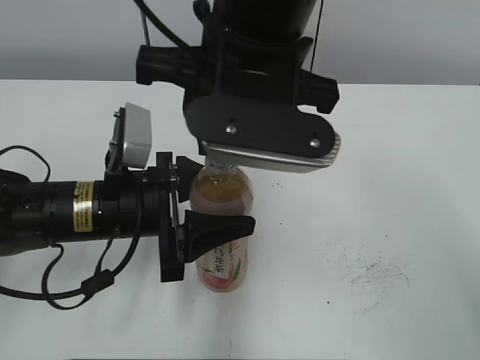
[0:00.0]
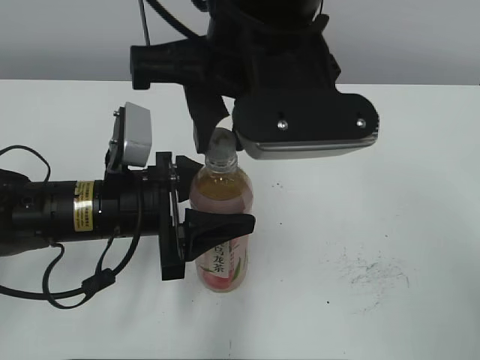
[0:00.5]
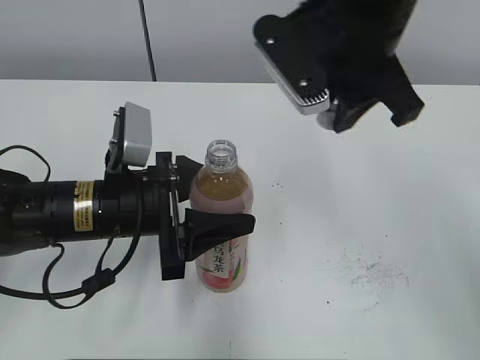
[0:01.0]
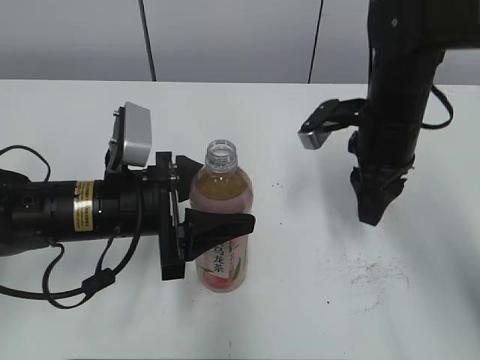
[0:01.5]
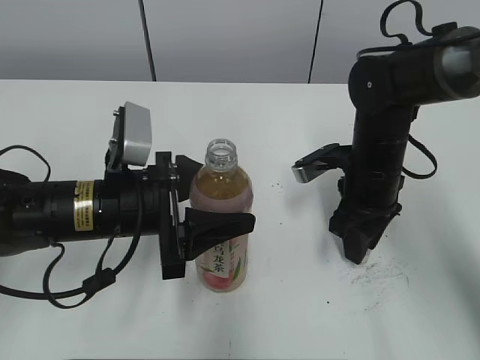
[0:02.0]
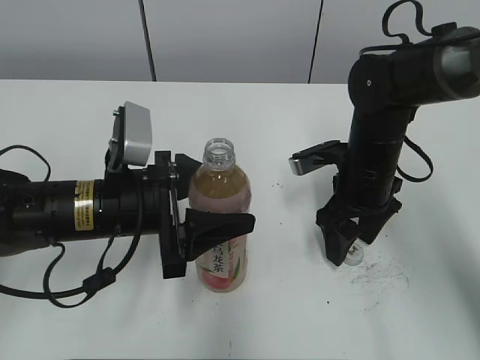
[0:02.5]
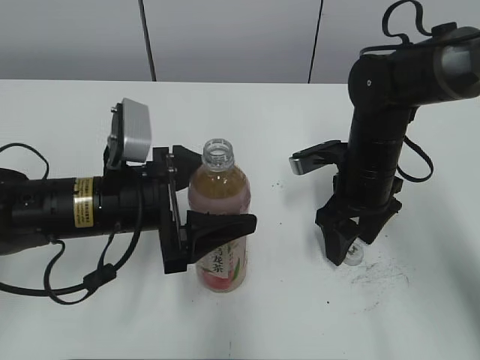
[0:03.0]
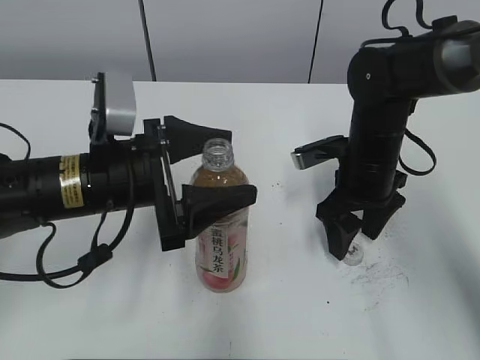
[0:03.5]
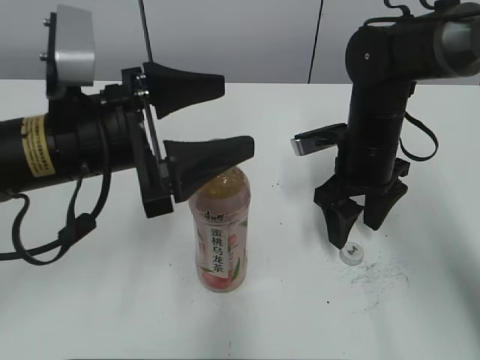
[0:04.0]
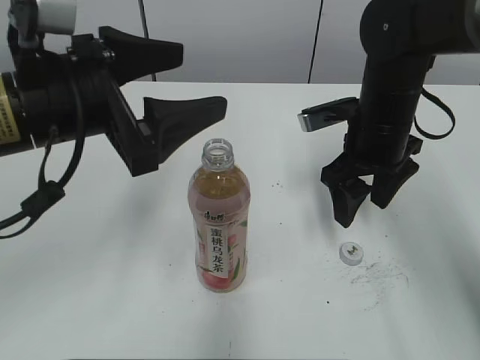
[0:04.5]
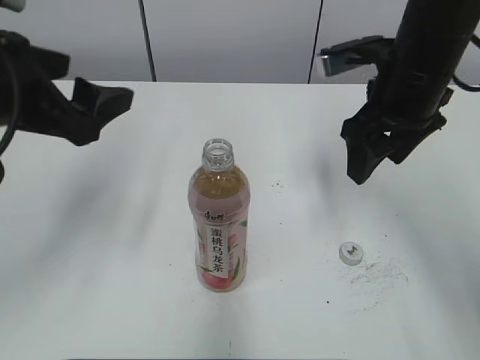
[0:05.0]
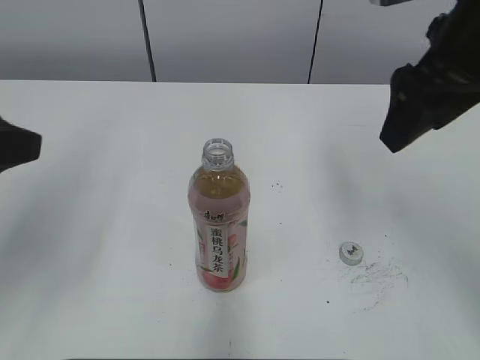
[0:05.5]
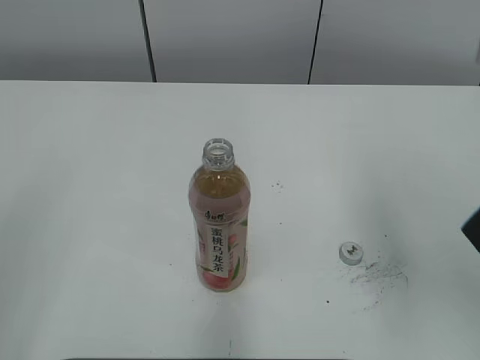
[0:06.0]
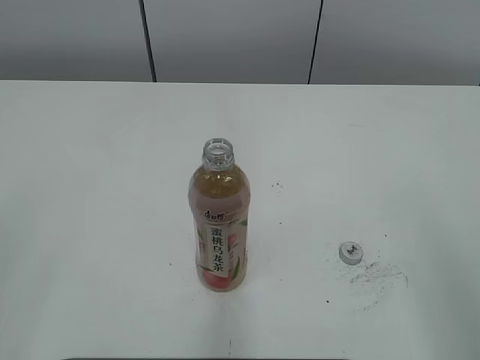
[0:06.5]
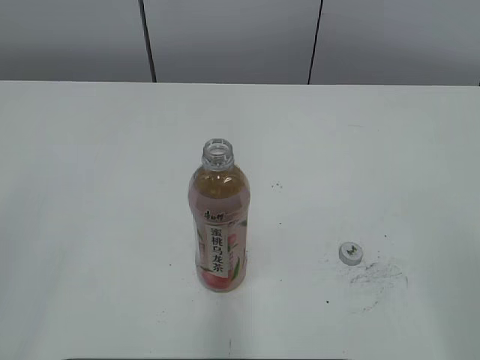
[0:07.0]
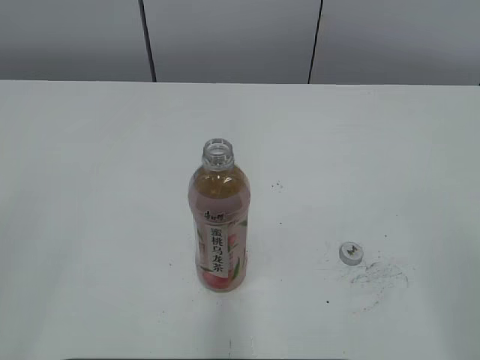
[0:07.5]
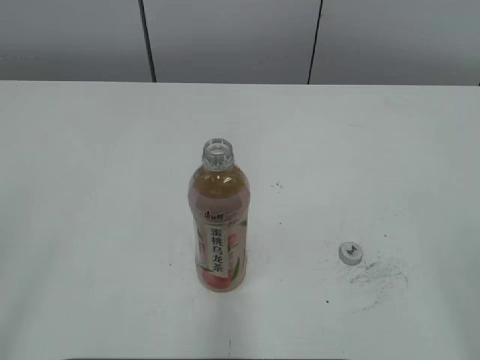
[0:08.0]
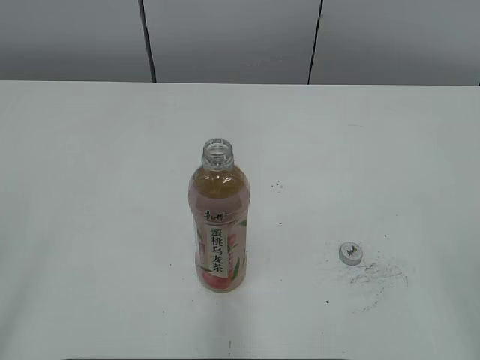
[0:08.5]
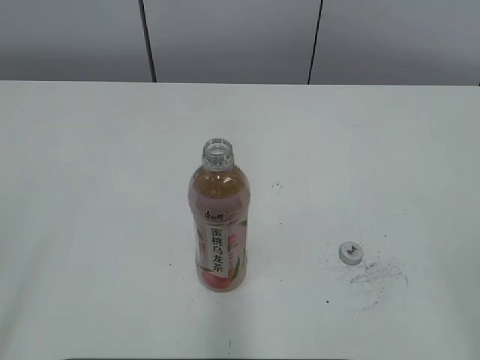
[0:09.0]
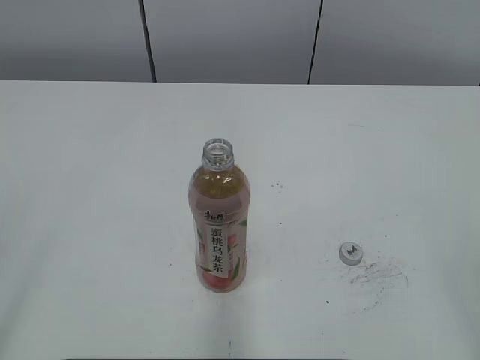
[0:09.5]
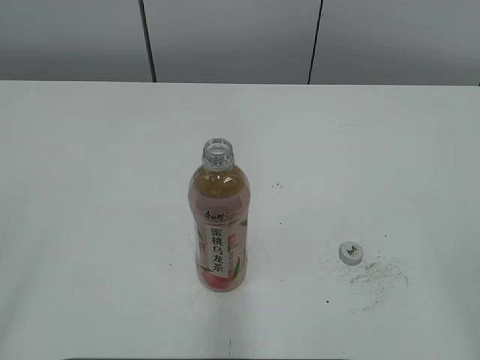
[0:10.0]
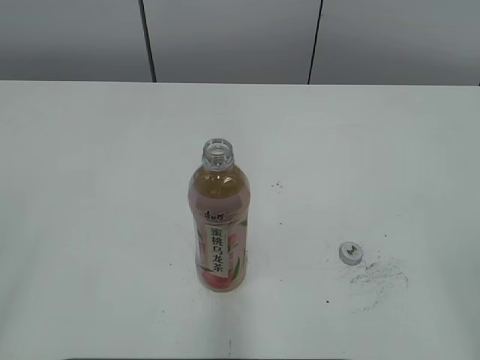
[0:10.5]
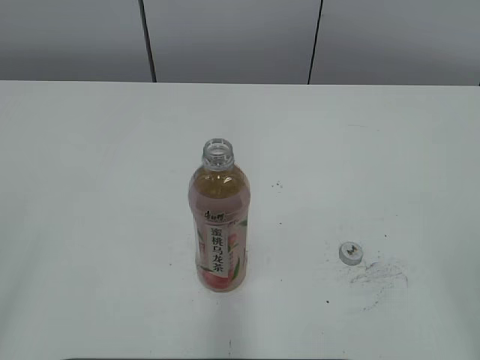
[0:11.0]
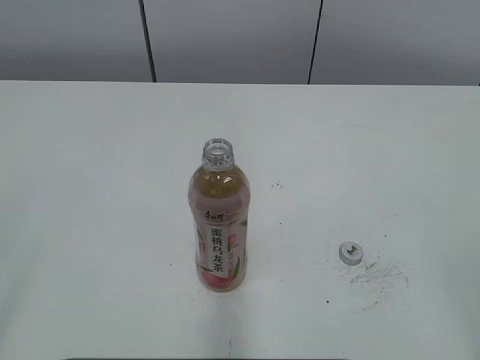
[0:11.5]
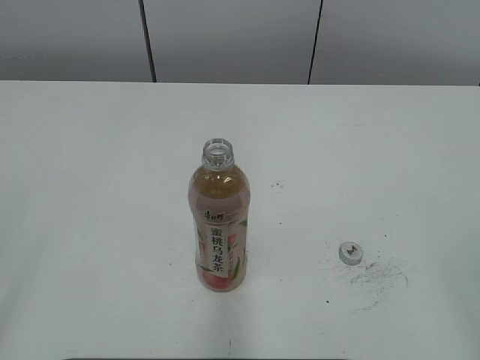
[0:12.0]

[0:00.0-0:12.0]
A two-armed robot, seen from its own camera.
Step, 0:01.0 to 0:02.0: Place the bottle cap on the right.
0:00.0 to 0:02.0: The right gripper is displaced downward, to the right and forward by roughly 25 cm.
0:02.0 to 0:04.0: The left gripper shifts some 10 cm upward, and opens. Meanwhile the right gripper opens its fingers.
0:04.0 to 0:06.0: The left gripper shifts about 25 cm backward, to the left and upward, while the right gripper moves upward and backward, about 25 cm.
0:06.0 to 0:08.0: The right gripper is displaced backward and to the right by roughly 20 cm.
0:10.0 to 0:12.0: Both grippers stay put.

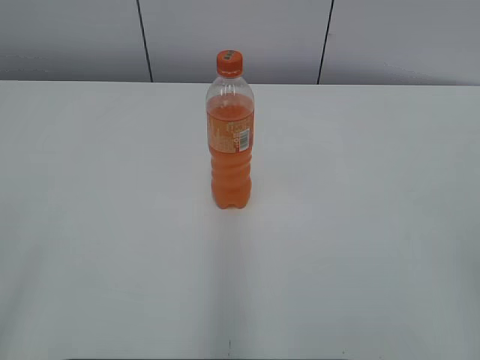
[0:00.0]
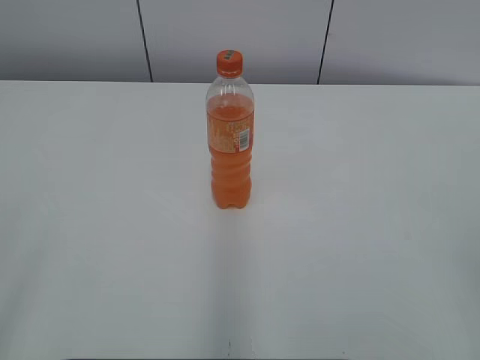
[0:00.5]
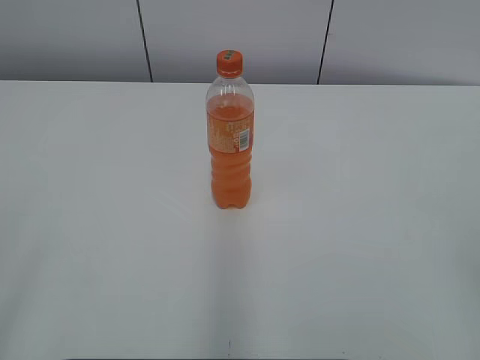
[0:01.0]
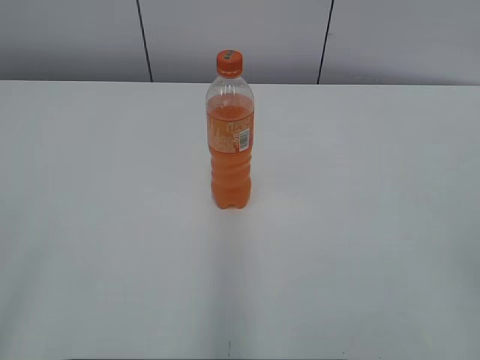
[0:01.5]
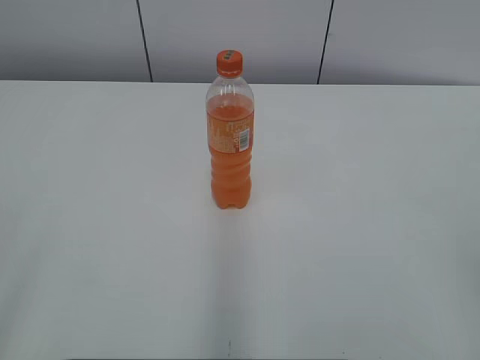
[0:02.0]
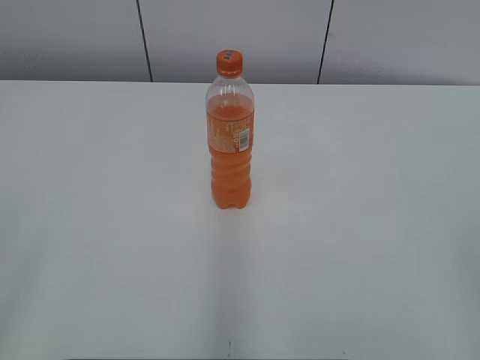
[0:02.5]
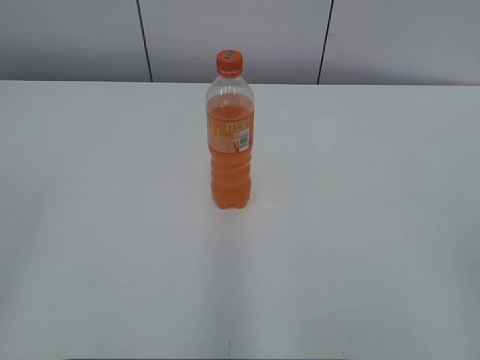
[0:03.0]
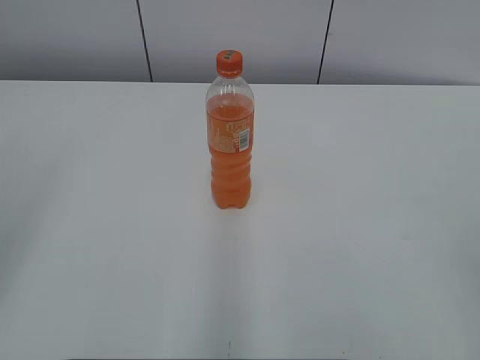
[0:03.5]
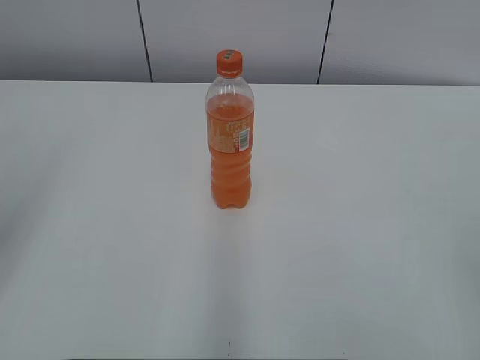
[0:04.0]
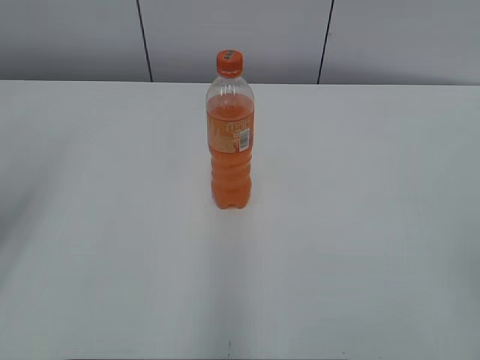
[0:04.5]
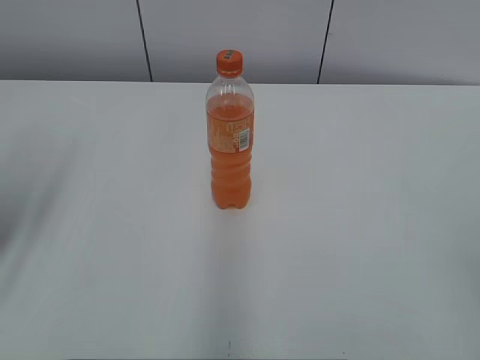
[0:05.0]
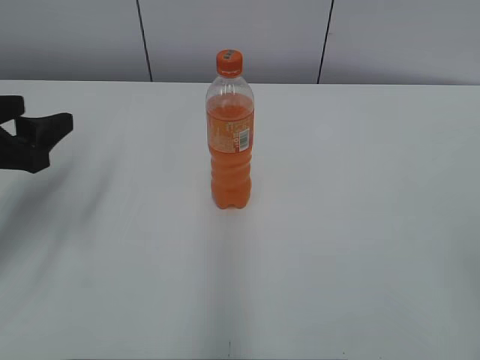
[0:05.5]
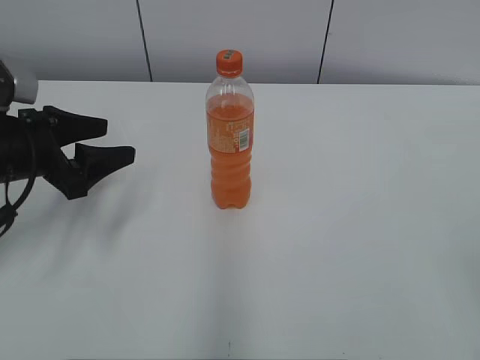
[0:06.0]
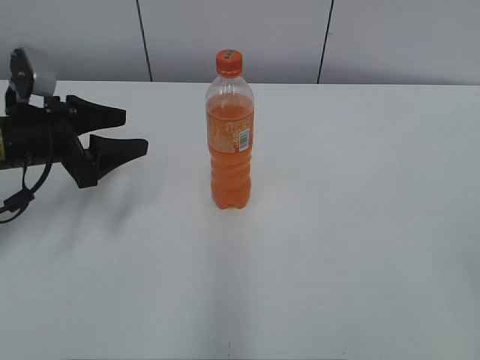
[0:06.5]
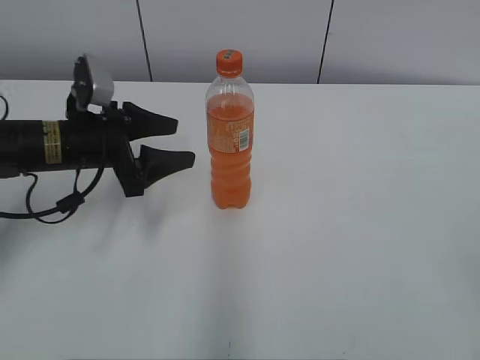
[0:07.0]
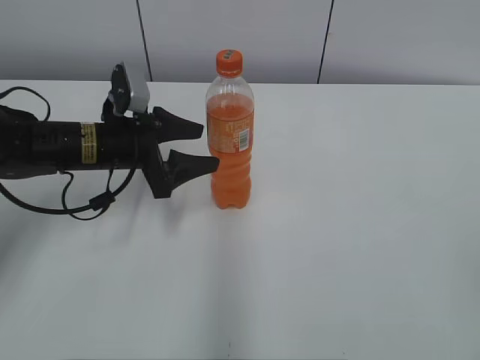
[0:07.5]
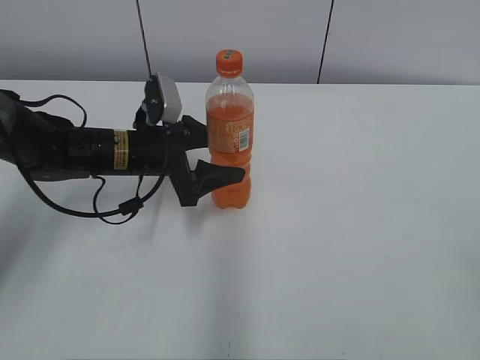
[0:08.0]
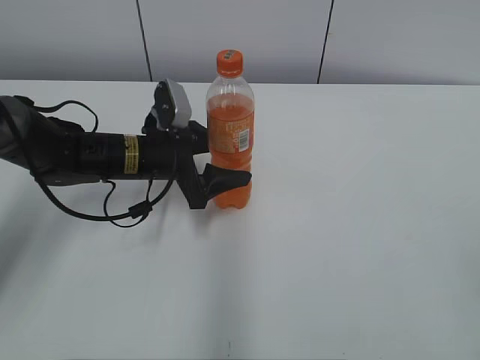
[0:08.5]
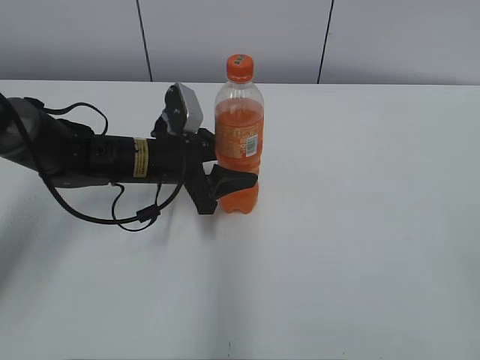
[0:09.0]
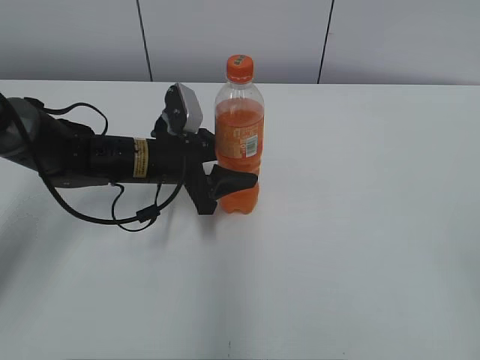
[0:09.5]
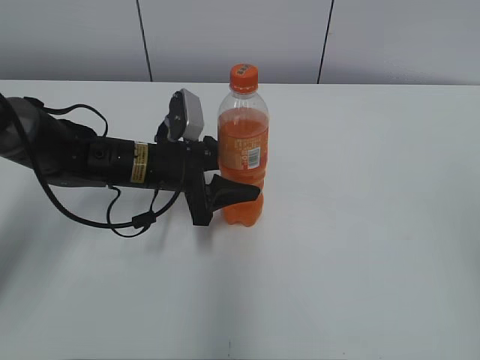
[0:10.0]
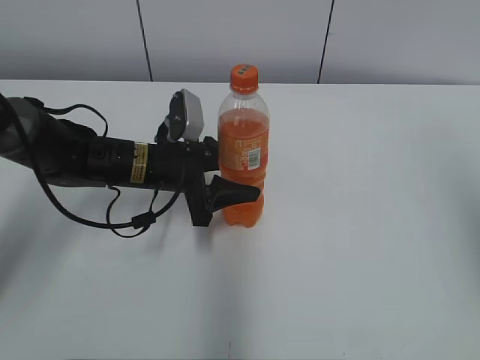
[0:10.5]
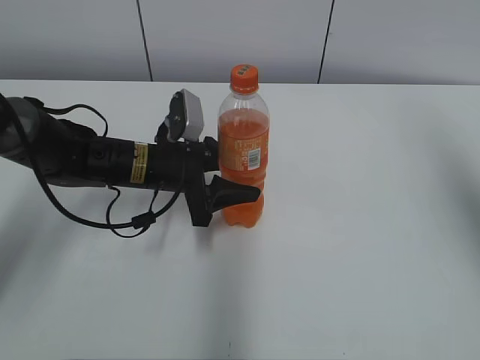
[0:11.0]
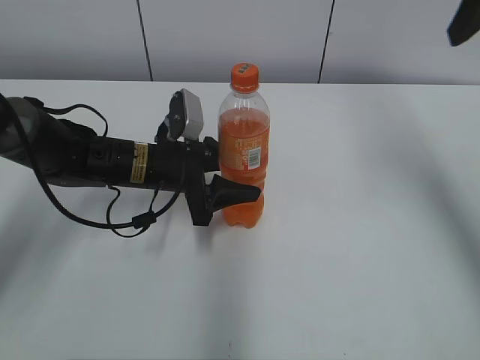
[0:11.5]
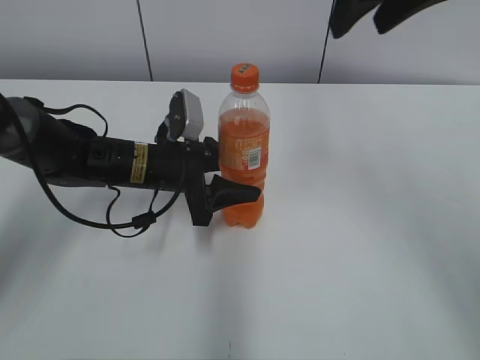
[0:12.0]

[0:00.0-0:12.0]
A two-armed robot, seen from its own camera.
Step, 0:00.0 to 0:08.5: Grab the Mirinda with the left hand.
Step, 0:09.0 to 0:10.0: Move the Mirinda from left to right.
0:04.0 to 0:06.0: The left gripper shifts some 20 cm forward, downward and to the right, and closes up.
0:06.0 to 0:08.0: The left gripper moves to the right, forward and downward, approximately 15 cm.
0:08.0 to 0:10.0: The right gripper goes roughly 5 cm upward, while the left gripper closes.
0:10.0 to 0:12.0: The right gripper moves forward and to the left, approximately 35 cm.

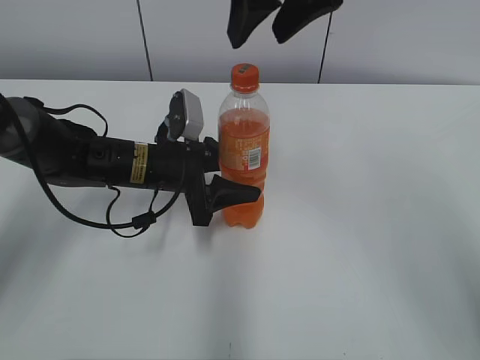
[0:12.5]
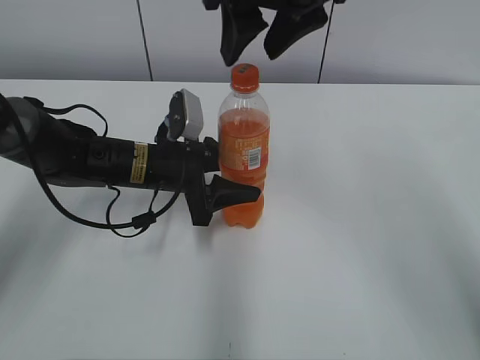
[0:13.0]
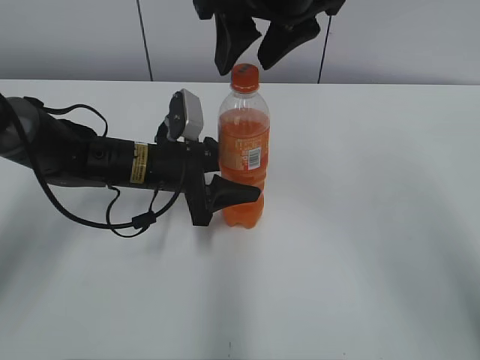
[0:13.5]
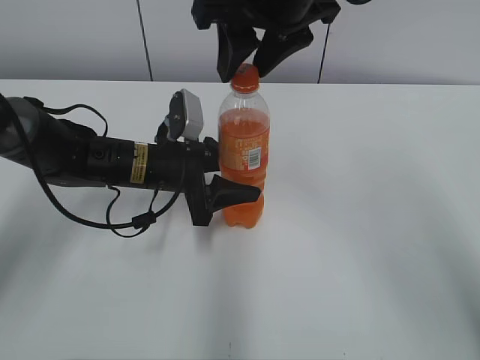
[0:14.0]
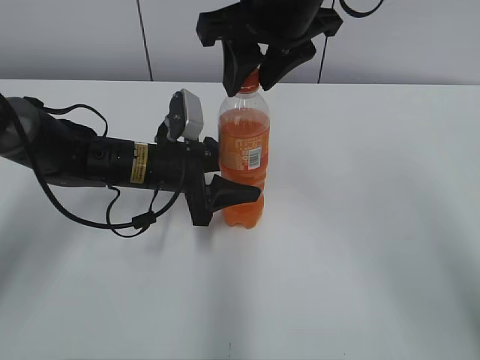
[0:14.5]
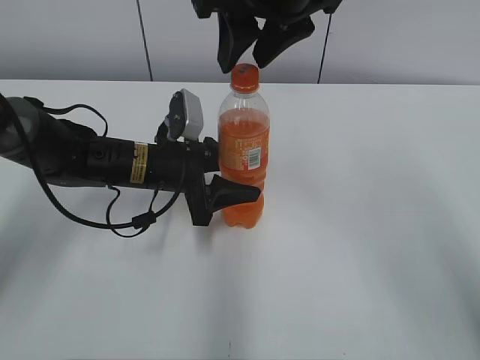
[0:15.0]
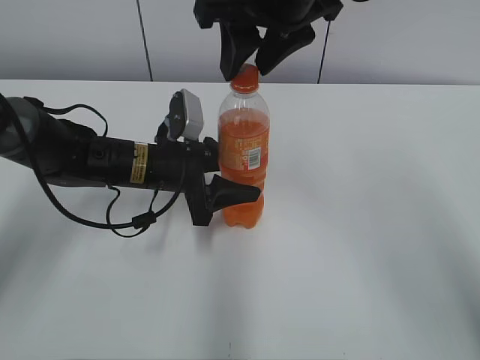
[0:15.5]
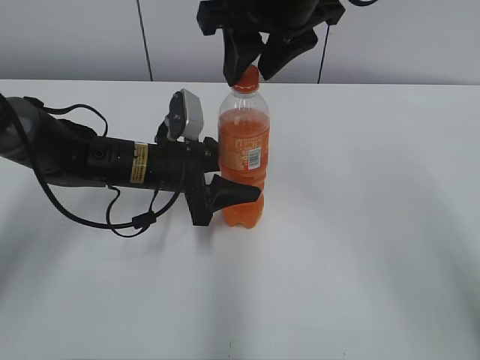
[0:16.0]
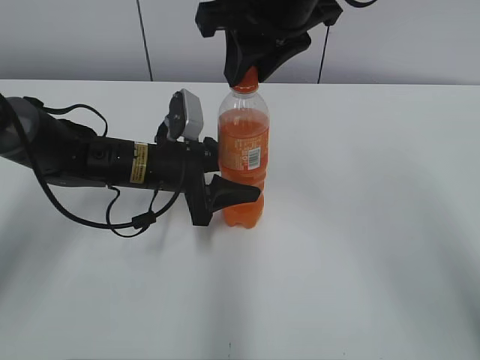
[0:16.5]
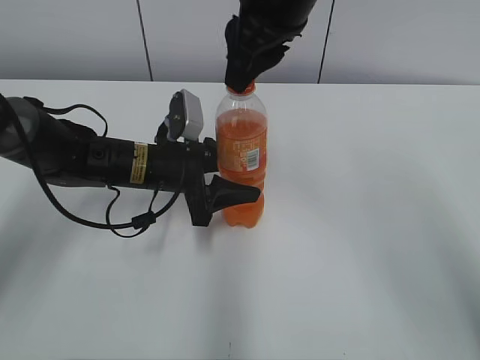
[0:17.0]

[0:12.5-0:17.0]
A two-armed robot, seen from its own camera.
0:12.5 to 0:14.5: The right gripper changes place by some 5 cm.
